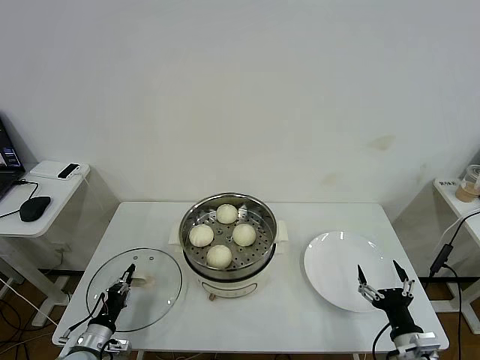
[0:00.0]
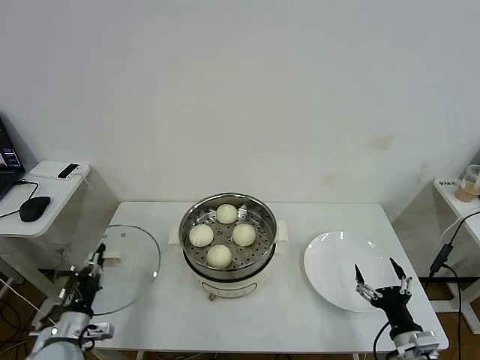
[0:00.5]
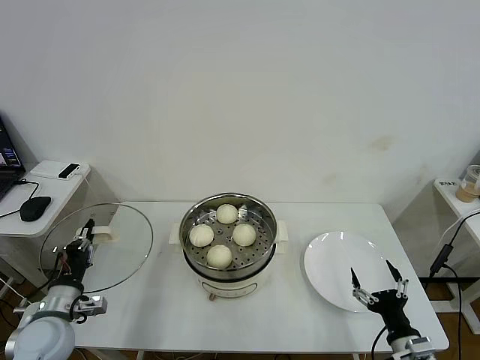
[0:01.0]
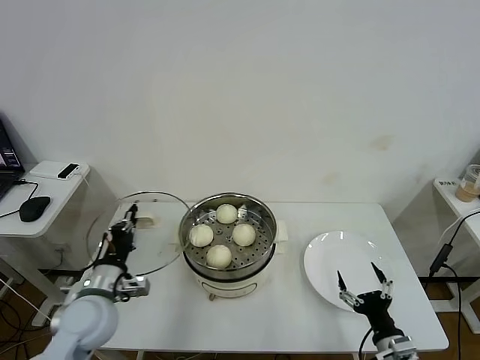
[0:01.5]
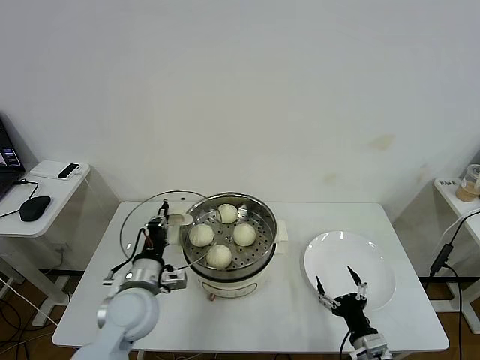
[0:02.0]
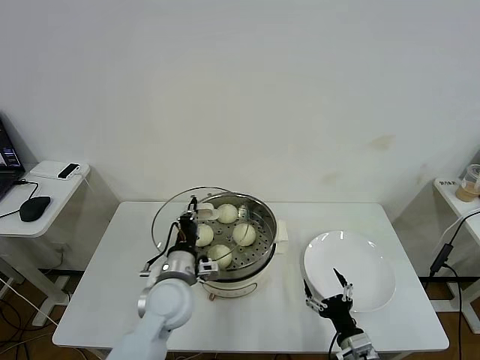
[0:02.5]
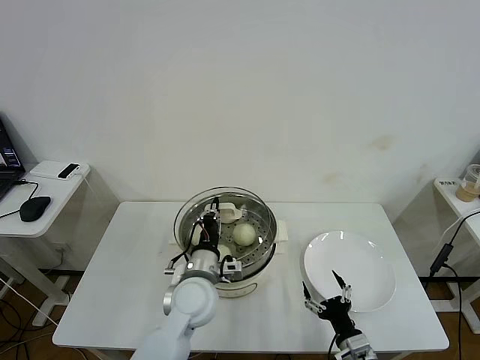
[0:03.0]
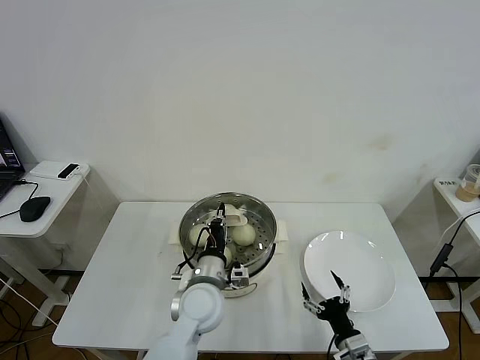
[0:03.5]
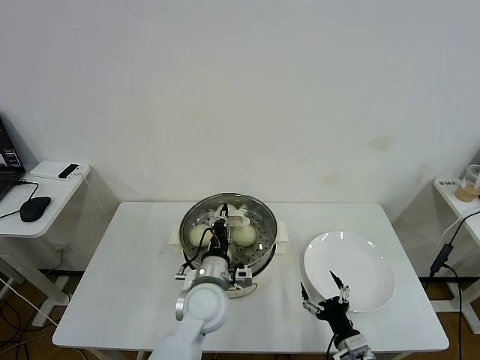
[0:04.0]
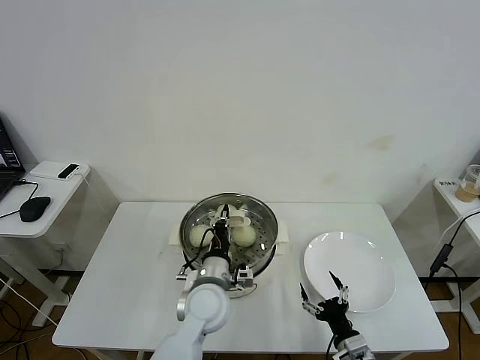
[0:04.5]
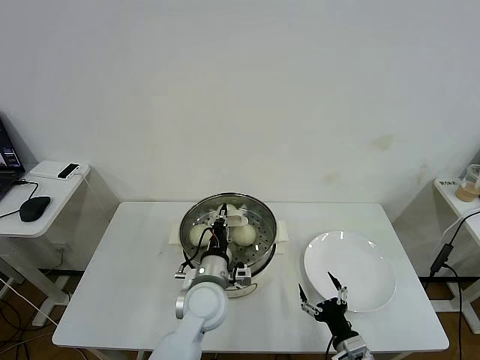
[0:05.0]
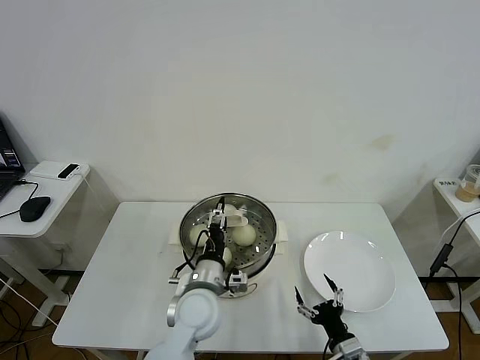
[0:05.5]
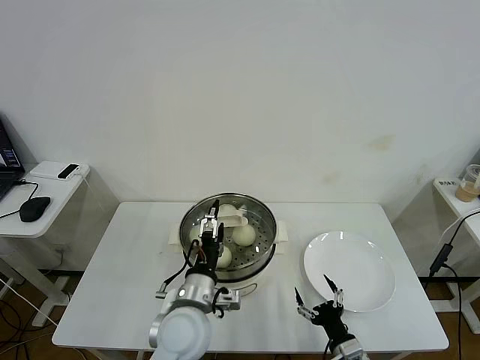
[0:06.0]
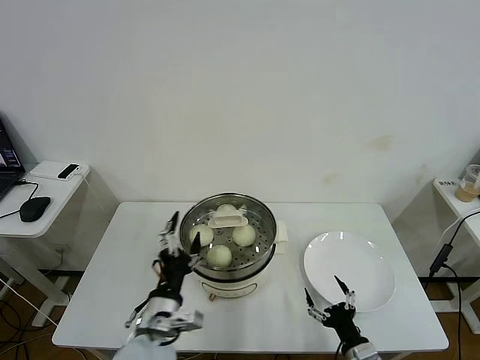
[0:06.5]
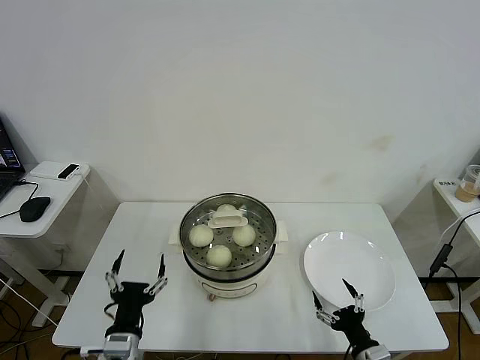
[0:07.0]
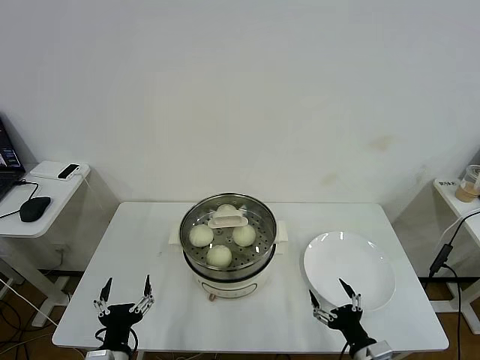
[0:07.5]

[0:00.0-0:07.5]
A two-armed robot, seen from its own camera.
Task of the whole recording: take steamed baozi put them in steamer then cover it.
Step, 0:00.0 to 0:05.0: Place the pot lid on the steamer with left gripper.
0:00.0 to 0:02.0: The left gripper shifts some 25 cm upward and to the right, while the right gripper goes about 5 cm to the left.
0:02.0 to 0:04.0: The left gripper travels to the right by some 15 cm.
0:04.0 to 0:05.5: The left gripper opens up.
0:05.5 to 0:07.5: The right gripper moves about 5 cm, while the left gripper is displaced to the left and backward by about 25 cm, and opens.
